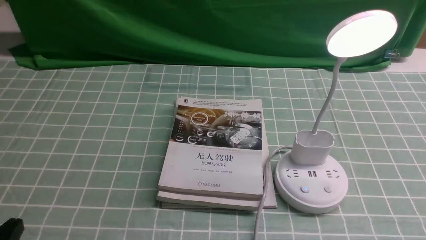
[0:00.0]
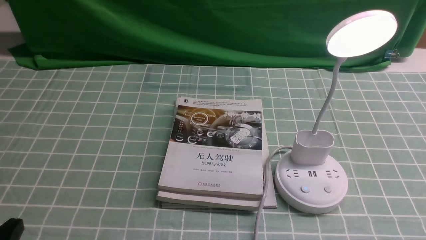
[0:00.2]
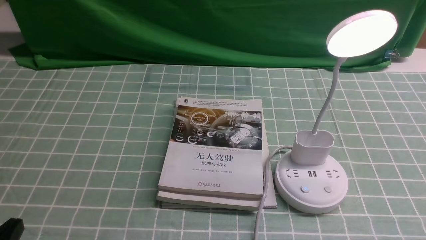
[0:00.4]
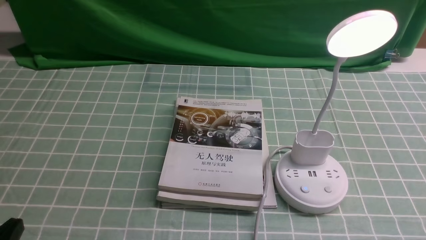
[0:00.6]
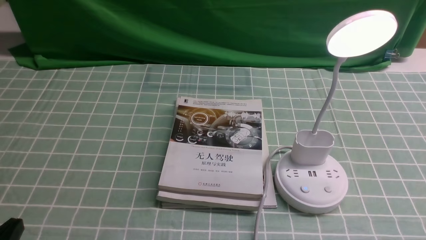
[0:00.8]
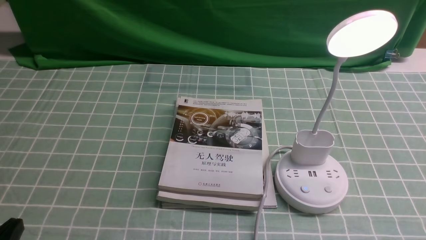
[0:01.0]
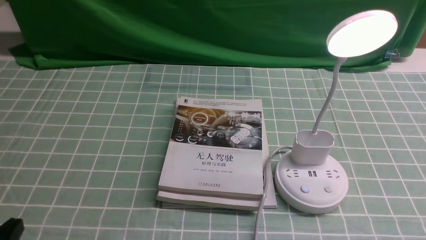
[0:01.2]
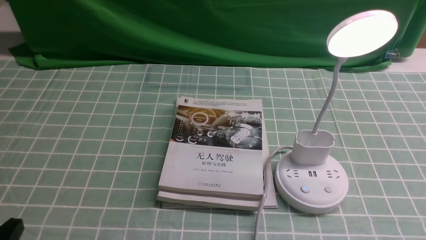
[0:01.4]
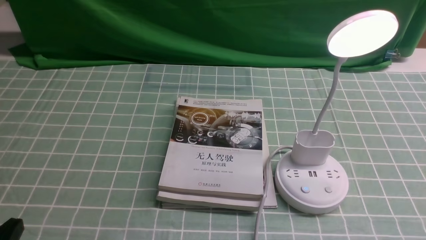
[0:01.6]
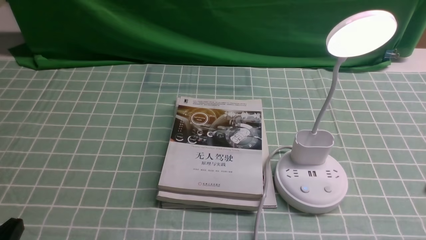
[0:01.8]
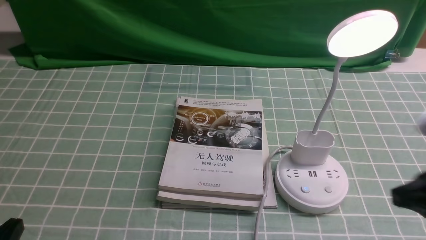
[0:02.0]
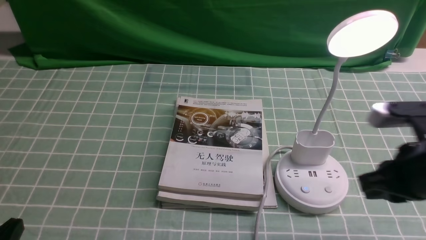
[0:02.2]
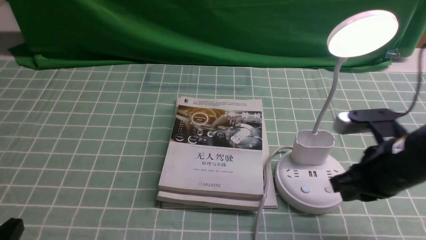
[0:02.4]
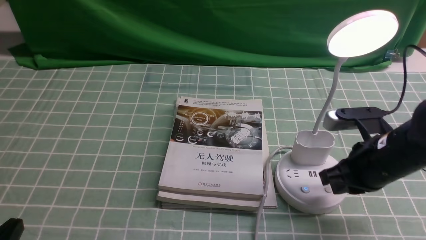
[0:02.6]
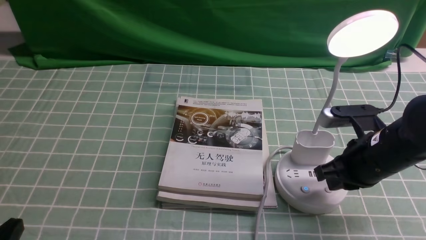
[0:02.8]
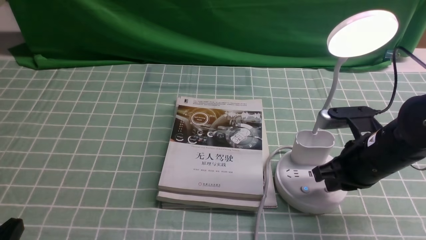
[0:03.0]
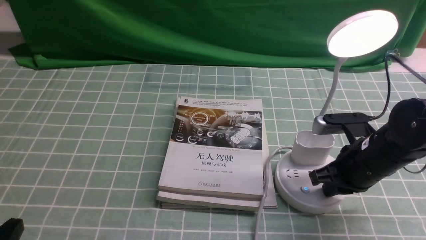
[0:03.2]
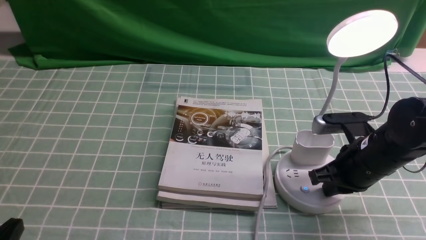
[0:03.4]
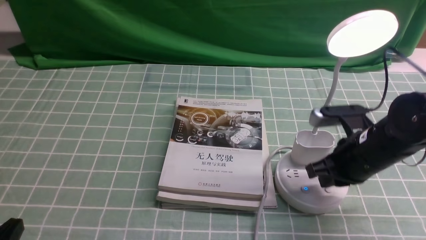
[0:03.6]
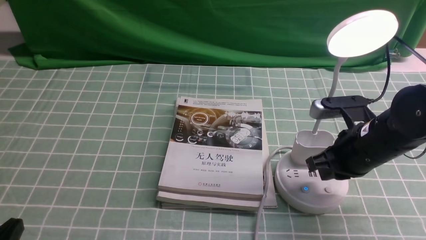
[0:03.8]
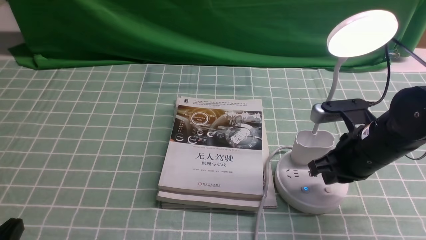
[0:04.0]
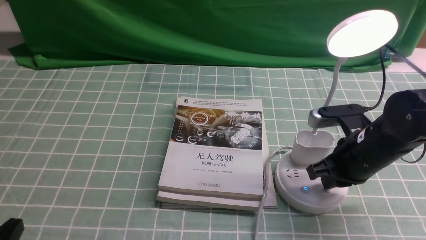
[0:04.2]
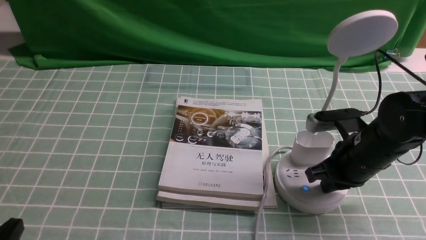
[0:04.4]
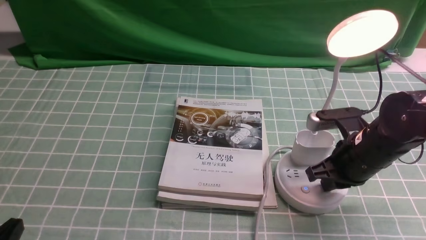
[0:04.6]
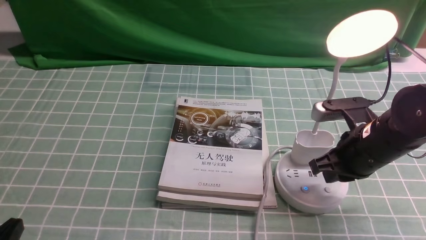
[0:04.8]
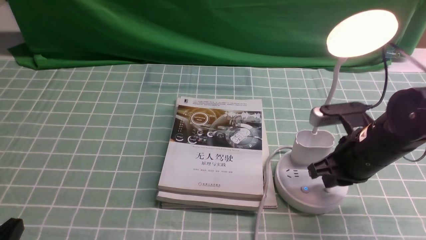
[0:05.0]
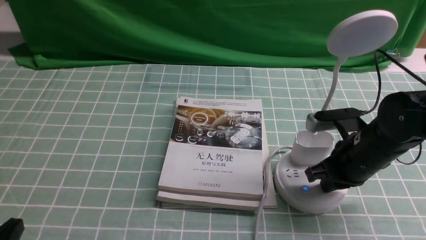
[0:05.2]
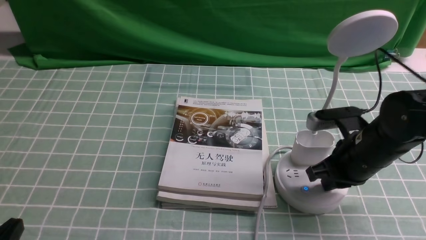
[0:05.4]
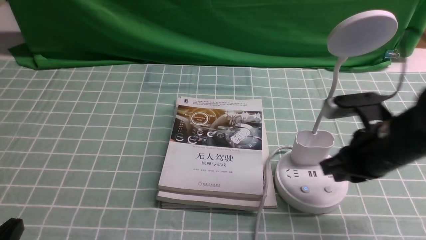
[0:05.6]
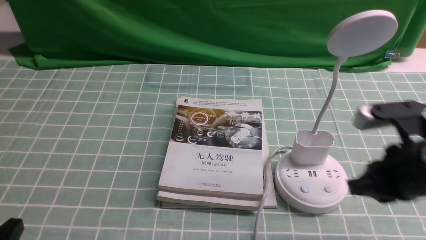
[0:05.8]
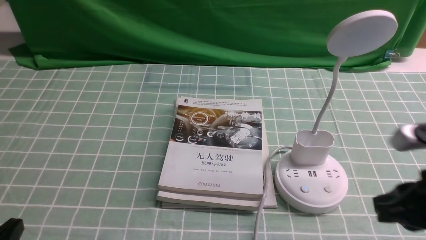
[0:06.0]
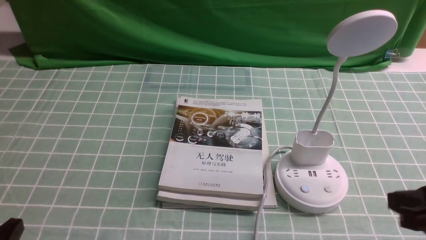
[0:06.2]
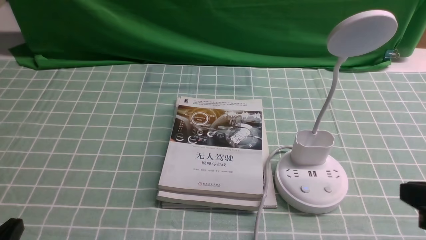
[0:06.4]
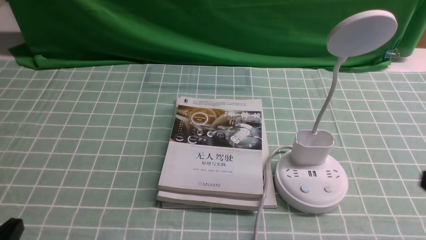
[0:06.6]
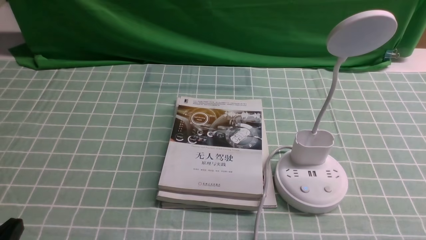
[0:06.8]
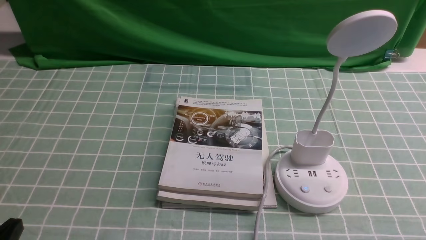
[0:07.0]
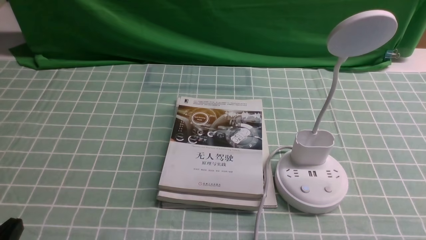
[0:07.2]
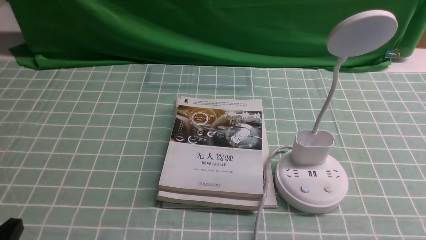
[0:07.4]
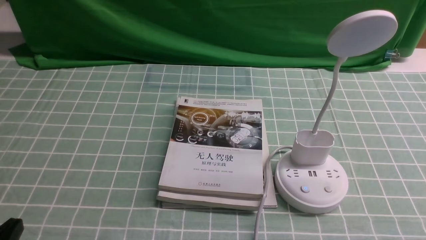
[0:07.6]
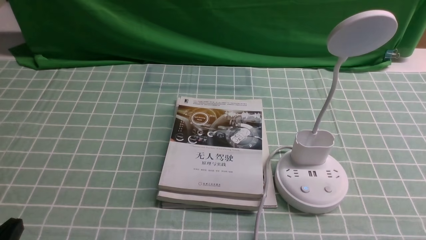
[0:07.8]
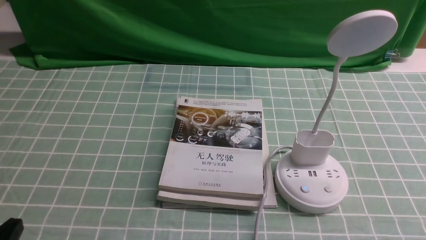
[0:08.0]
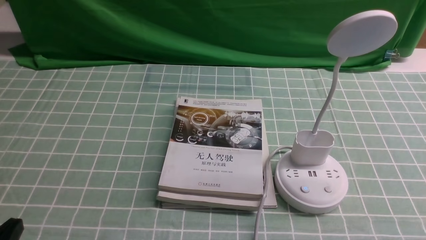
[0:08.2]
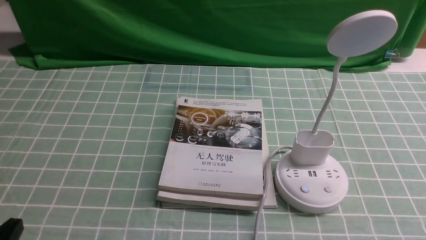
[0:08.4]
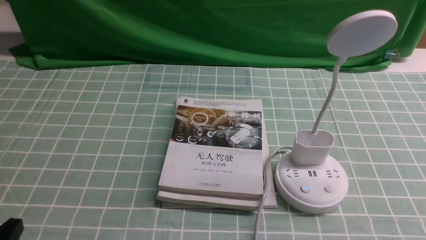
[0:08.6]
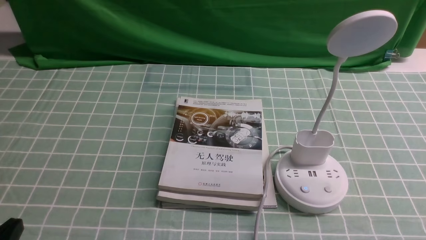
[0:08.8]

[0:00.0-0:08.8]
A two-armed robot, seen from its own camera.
Task of the whole recording: turn off the desk lamp on the blue coffee tablecloth by hand.
Step, 0:00.0 to 0:05.4: use the right arm to press the button switch on the lamp holder.
0:01.4 to 0:03.0: The right gripper is displaced forward and to the left by roughly 25 cm, and closes its fingers.
0:03.0 to 0:04.4: There are only small adjustments of the grippers.
0:04.4 to 0:05.8: The right gripper is displaced backward and upward by some 10 cm.
0:05.8 to 0:07.4: The right gripper is displaced backward and to the right by about 20 cm.
